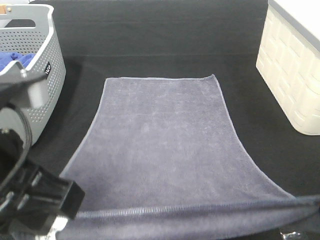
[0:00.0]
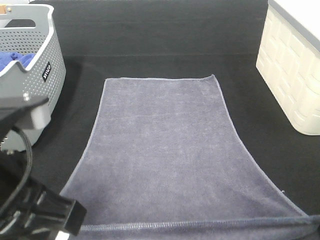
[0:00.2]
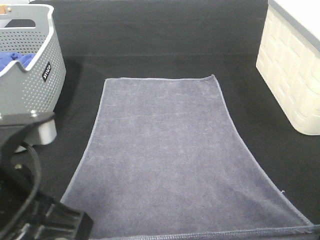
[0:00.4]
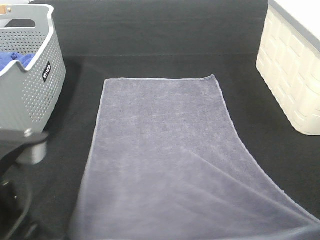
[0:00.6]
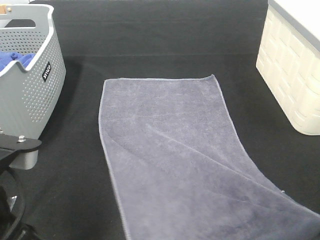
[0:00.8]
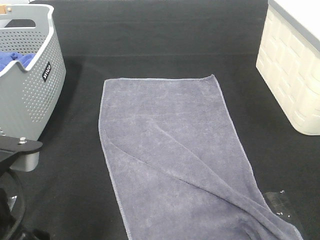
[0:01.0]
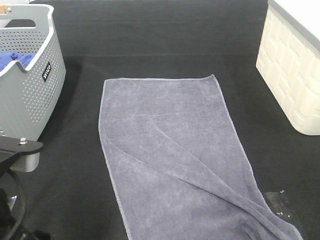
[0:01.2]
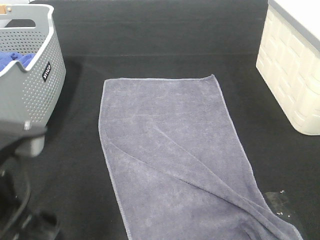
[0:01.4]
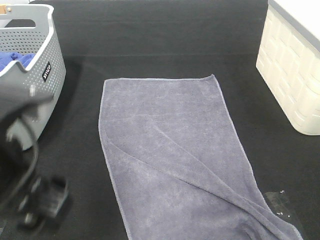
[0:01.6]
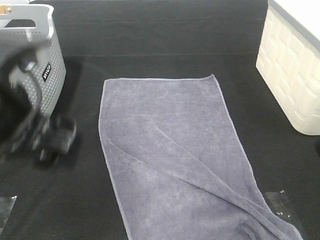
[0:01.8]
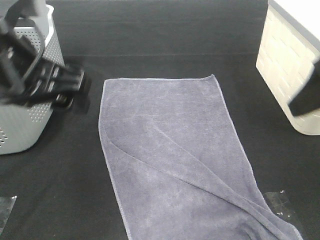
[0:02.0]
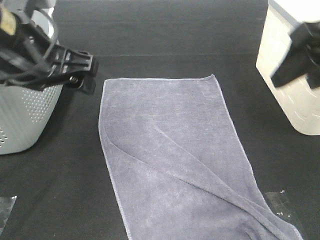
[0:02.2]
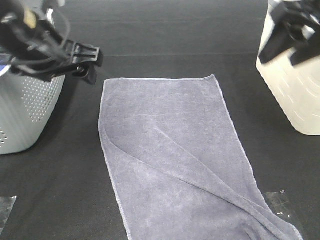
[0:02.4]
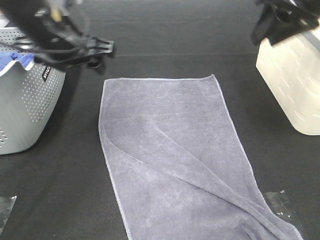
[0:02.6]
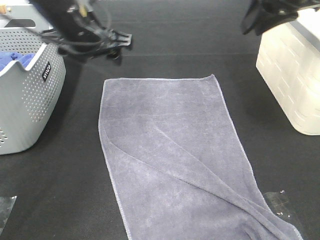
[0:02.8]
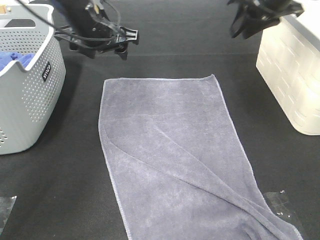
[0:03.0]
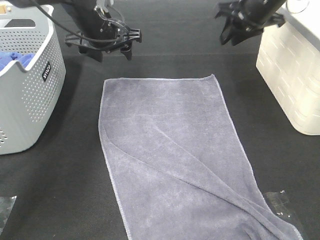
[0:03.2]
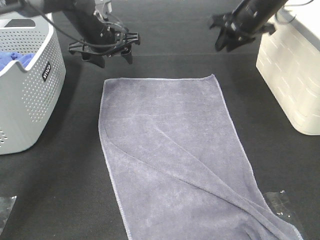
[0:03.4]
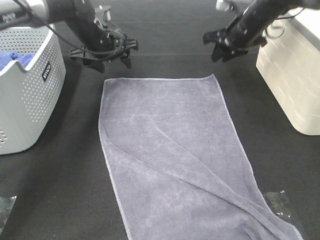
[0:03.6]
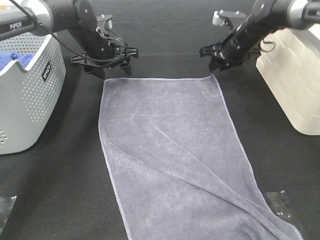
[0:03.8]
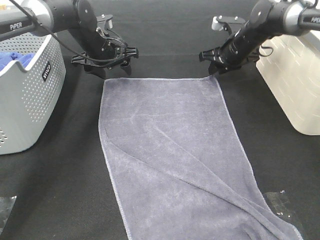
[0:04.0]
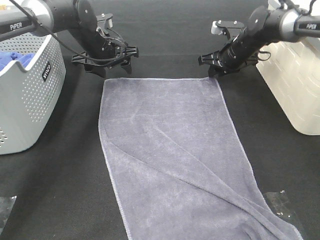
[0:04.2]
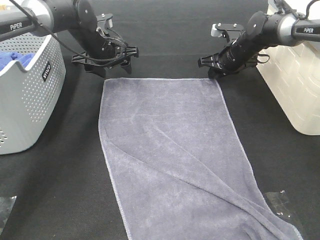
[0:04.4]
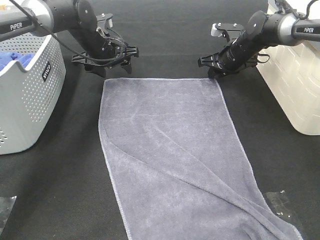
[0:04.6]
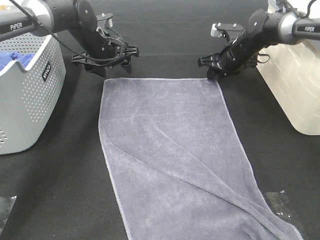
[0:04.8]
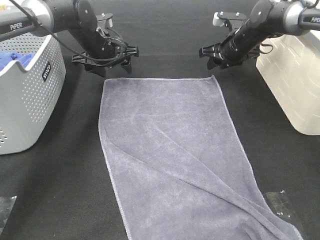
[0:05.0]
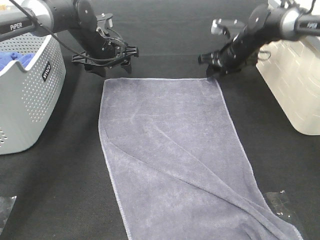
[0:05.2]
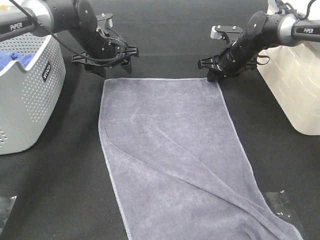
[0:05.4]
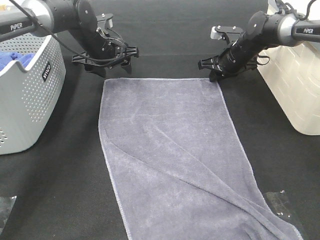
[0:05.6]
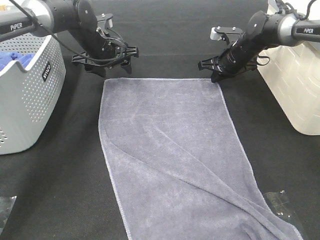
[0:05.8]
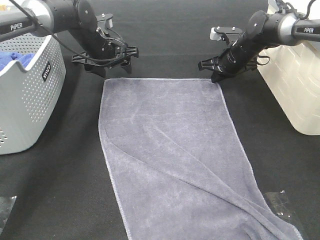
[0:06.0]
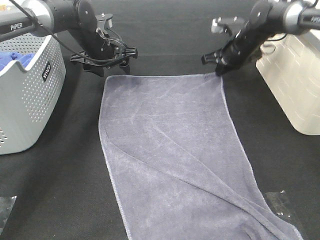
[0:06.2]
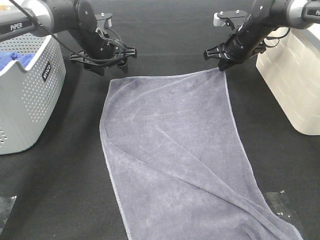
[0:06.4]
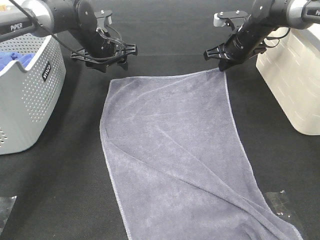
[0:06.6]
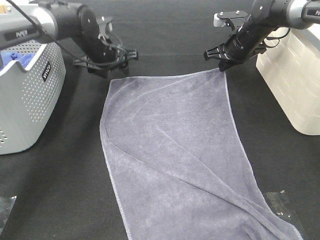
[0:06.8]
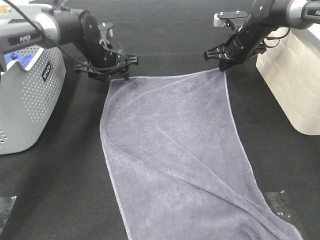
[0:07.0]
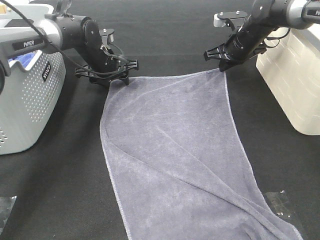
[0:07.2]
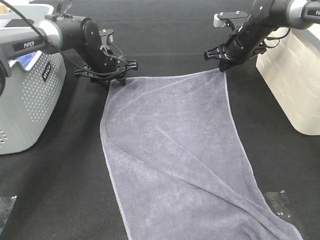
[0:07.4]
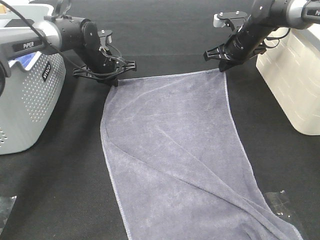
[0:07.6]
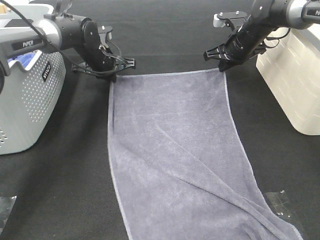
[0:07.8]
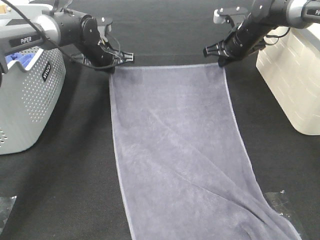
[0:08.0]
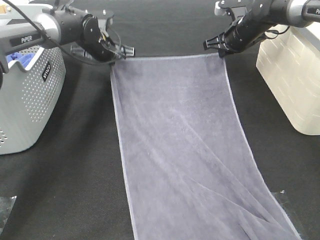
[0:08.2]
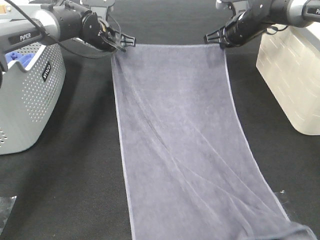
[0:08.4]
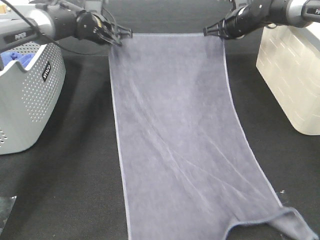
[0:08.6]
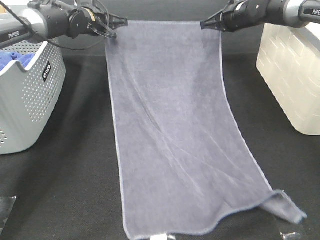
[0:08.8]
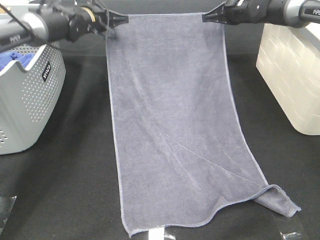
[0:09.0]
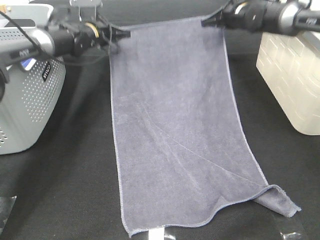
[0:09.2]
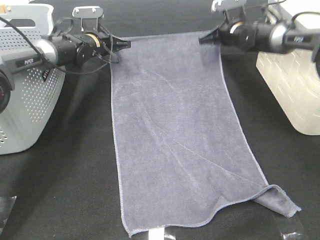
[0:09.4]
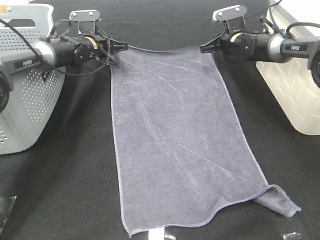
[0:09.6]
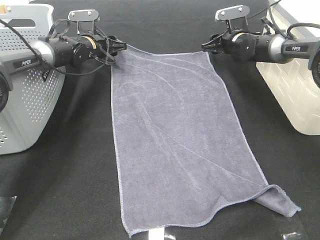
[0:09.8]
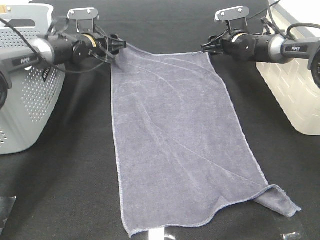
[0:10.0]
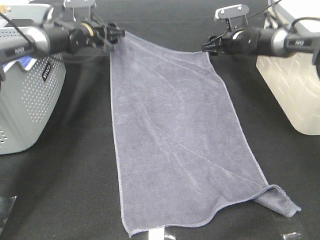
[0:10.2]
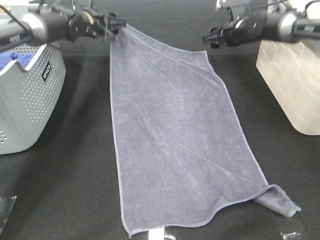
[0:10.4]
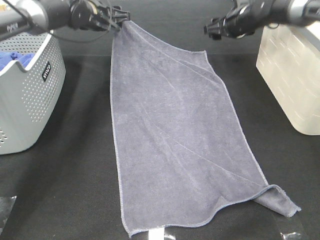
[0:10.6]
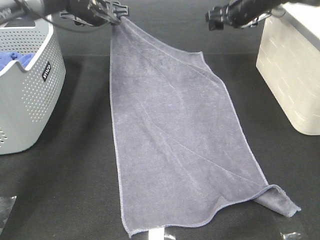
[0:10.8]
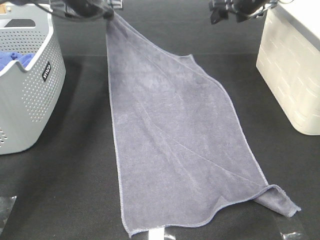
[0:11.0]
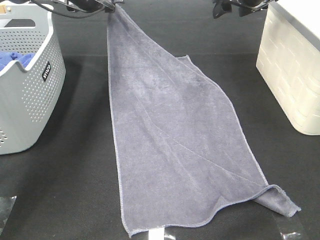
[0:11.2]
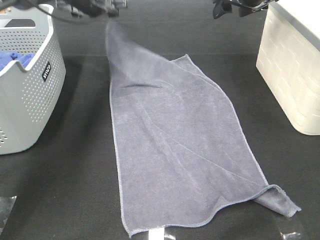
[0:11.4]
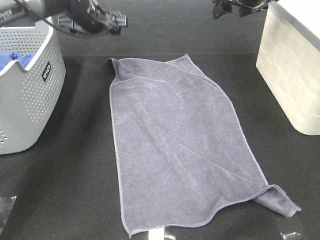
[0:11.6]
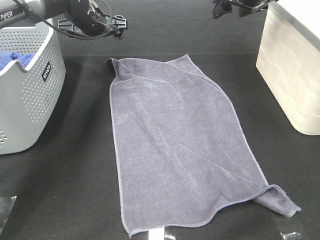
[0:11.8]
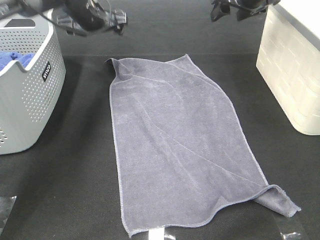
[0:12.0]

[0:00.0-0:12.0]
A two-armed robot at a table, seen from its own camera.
Task of the whole recording: Remove the towel and place it.
Step, 0:00.0 to 0:04.0: Right hand:adjust the gray towel.
Step, 0:00.0 to 0:04.8: Left hand:adjust the gray towel.
0:00.0 to 0:01.6: The left gripper opens its fingers. Meanwhile the right gripper opens its fingers.
0:01.6 to 0:03.0: Both grippers move forward, roughly 30 cm. The right gripper closes up.
0:03.0 to 0:04.4: The right gripper goes some 20 cm downward and forward. The left gripper goes roughly 10 cm downward and forward.
0:04.4 to 0:06.0: The right gripper closes.
0:06.0 to 0:07.6: The left gripper closes its fingers.
0:07.6 to 0:09.0: The right gripper shifts by roughly 5 cm. The left gripper moves upward and forward, some 10 cm.
0:09.0 to 0:10.4: The right gripper opens; the left gripper goes downward and returns, roughly 5 cm each way, and opens its fingers.
0:10.4 to 0:12.0: The left gripper changes place by roughly 5 cm. The right gripper moves upward and backward, roughly 15 cm.

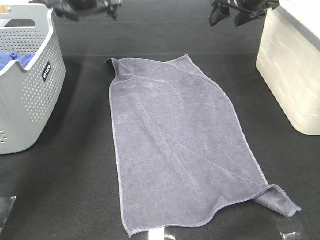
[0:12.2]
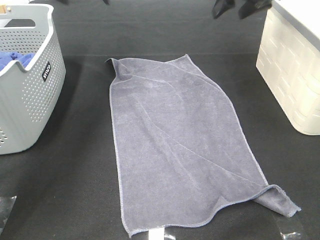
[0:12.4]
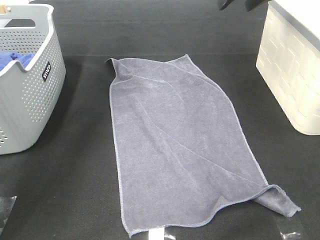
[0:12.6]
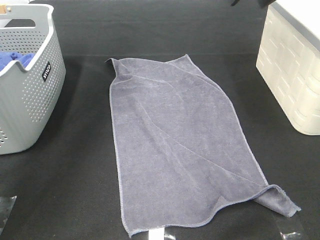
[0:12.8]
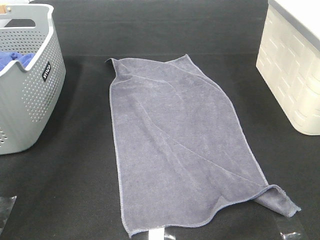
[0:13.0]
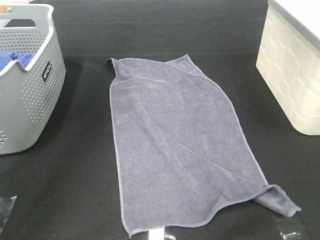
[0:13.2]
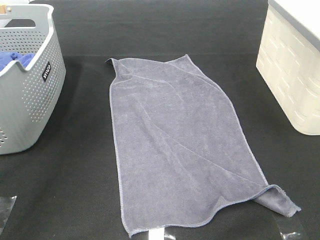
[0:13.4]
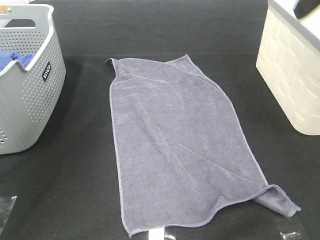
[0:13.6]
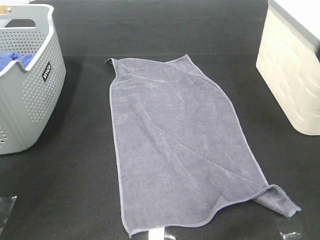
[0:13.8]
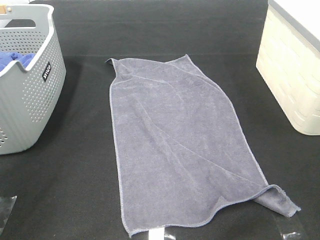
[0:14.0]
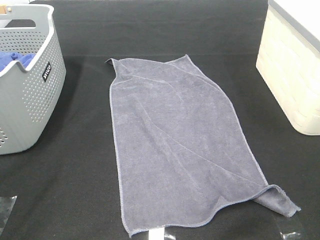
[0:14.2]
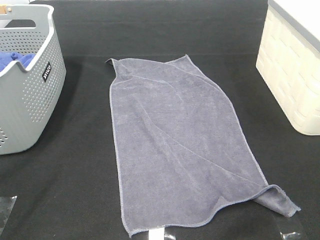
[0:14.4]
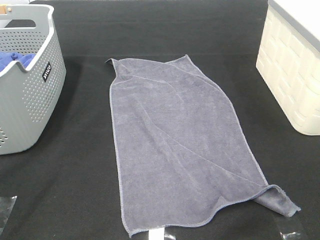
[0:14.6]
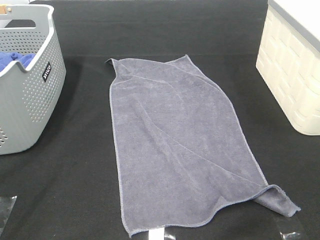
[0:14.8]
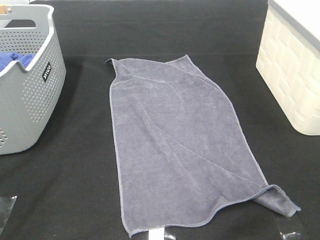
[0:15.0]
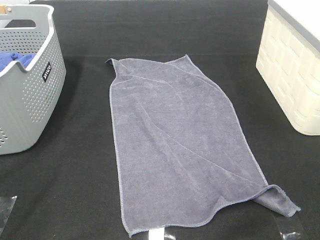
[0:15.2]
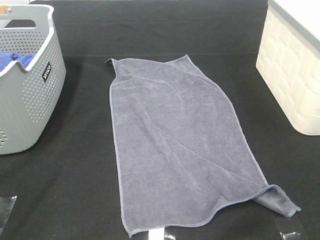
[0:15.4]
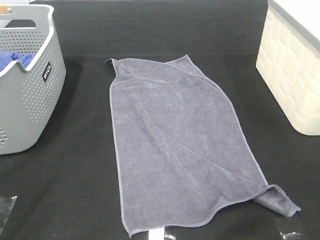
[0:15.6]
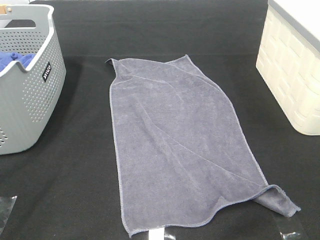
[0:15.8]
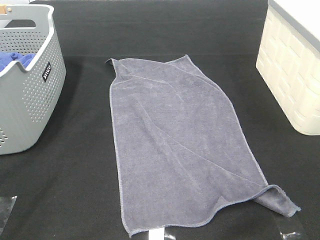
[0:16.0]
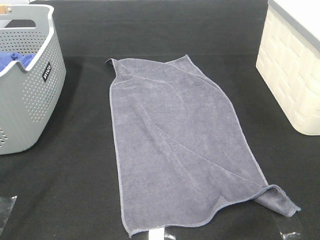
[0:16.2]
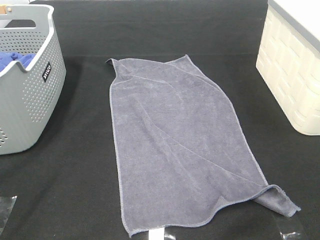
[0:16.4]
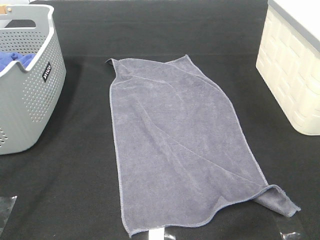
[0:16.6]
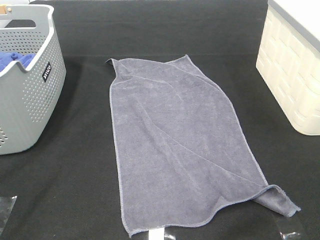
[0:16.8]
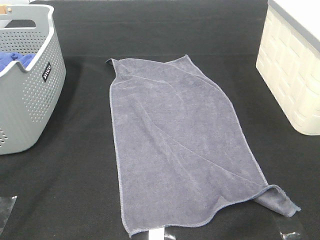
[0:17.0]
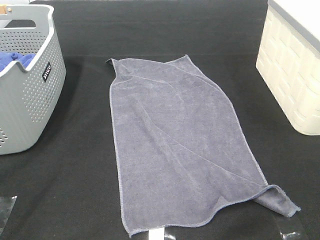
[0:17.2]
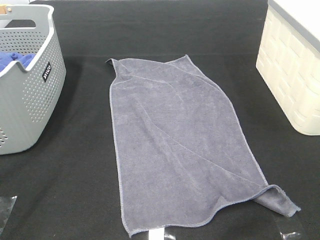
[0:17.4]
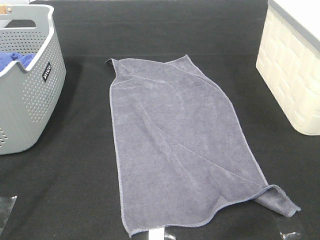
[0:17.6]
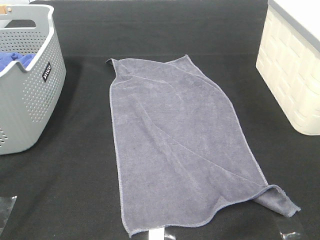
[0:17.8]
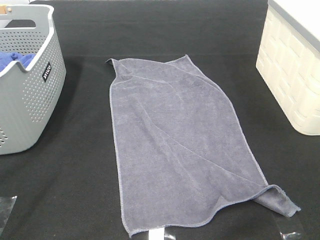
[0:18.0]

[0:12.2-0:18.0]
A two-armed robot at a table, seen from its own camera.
Task of the whole recording: Remove the towel and place it.
0:12.2 to 0:13.6: The grippers both shift backward and upward by approximately 30 cm.
0:13.6 to 0:15.0: Both grippers move backward and downward, roughly 25 cm.
0:16.6 to 0:18.0: Both grippers stay about where they are.

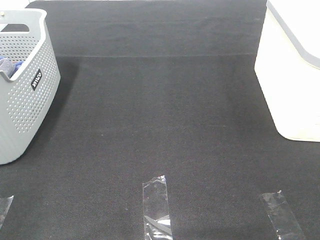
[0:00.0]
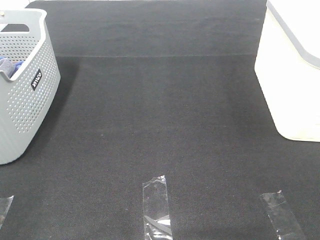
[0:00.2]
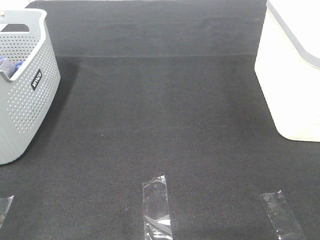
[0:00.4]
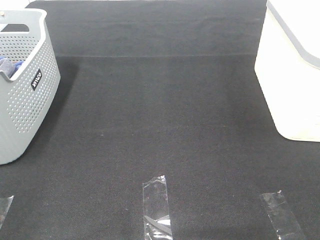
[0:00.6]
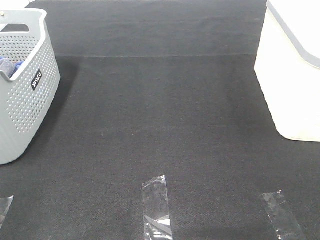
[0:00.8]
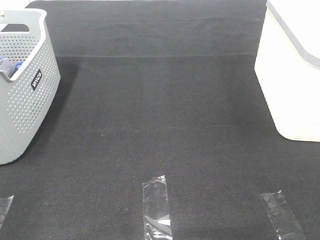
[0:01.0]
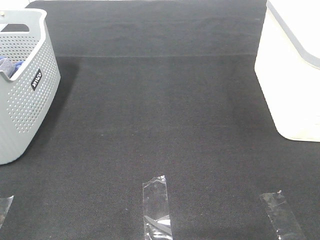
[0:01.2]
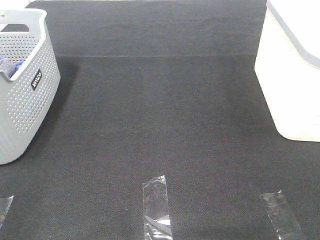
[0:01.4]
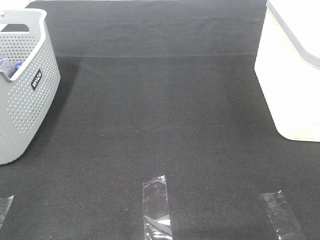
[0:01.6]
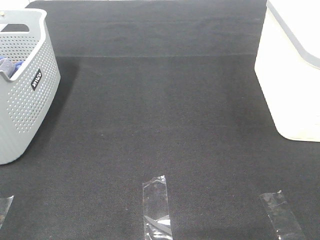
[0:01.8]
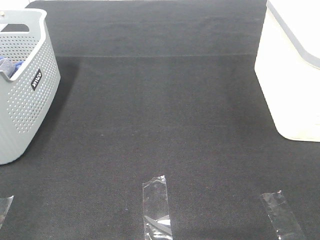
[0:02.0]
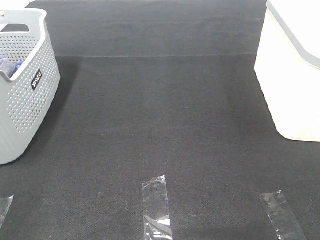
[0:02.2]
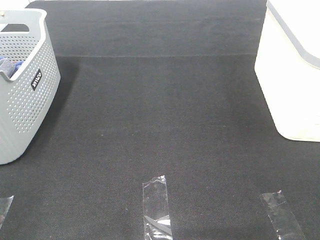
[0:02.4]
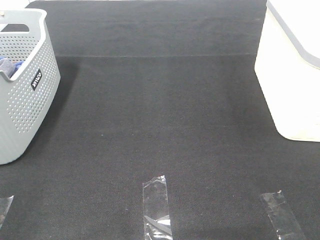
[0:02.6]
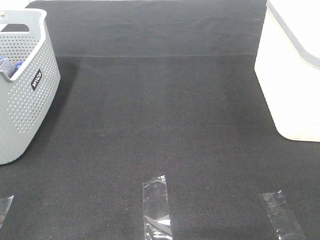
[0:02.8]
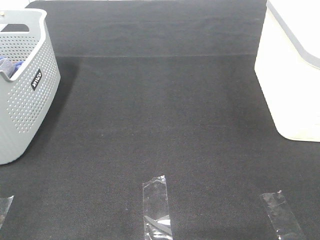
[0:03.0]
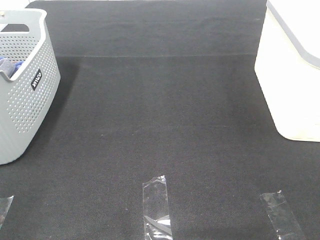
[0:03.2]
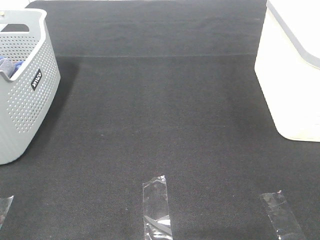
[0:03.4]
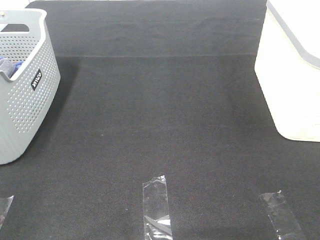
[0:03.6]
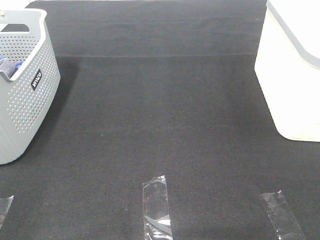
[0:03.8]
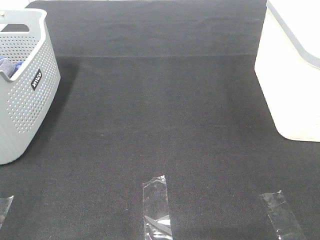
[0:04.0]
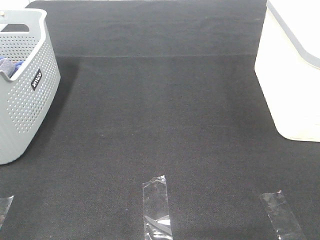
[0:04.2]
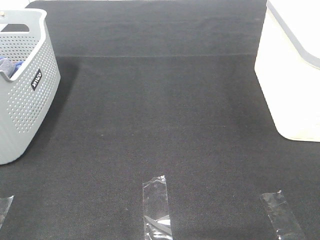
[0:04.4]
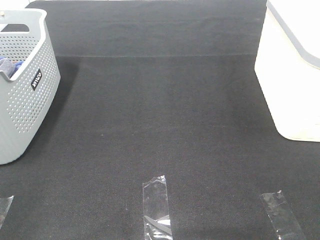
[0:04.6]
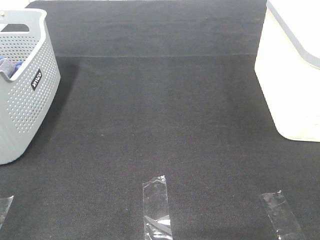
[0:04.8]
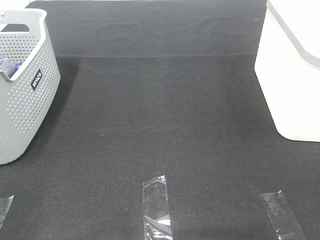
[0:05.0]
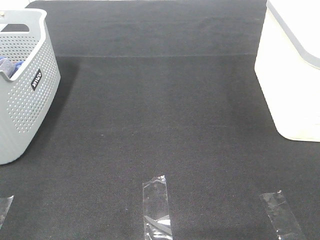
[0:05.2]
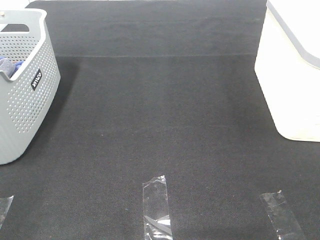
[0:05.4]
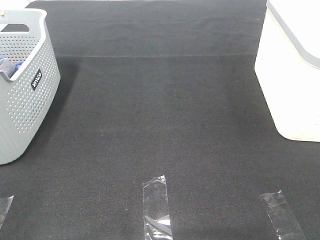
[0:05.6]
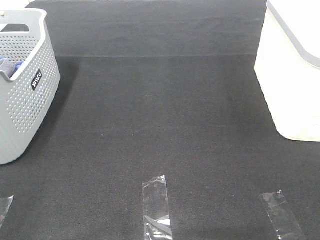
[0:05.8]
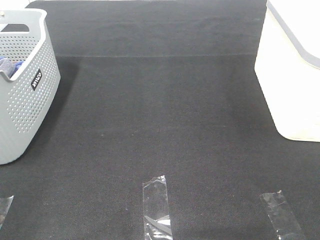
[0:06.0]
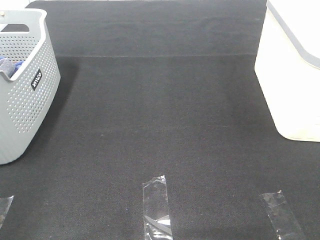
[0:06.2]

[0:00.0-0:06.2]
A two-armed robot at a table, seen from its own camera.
Task of the whole recording: Remove the towel and place it.
0:00.0 to 0:04.6: Both grippers stay put.
